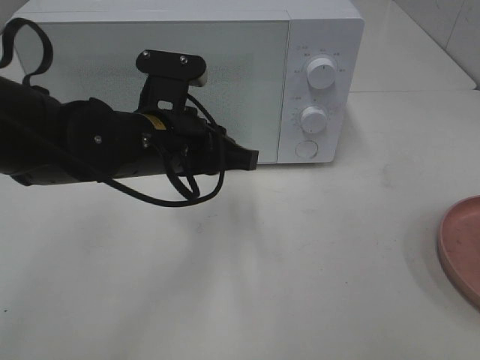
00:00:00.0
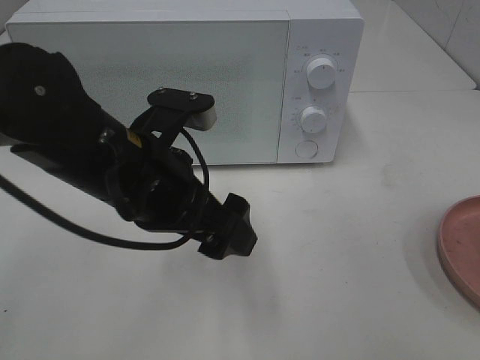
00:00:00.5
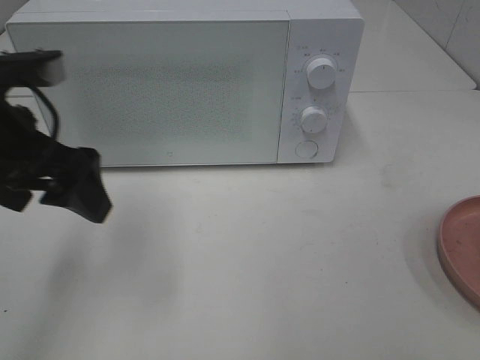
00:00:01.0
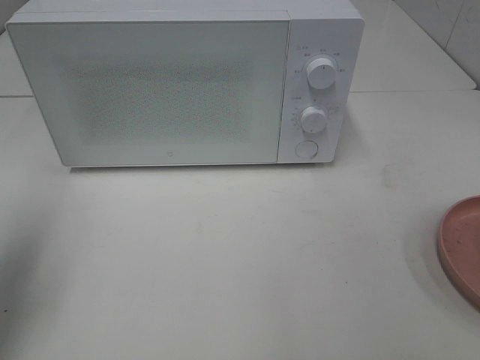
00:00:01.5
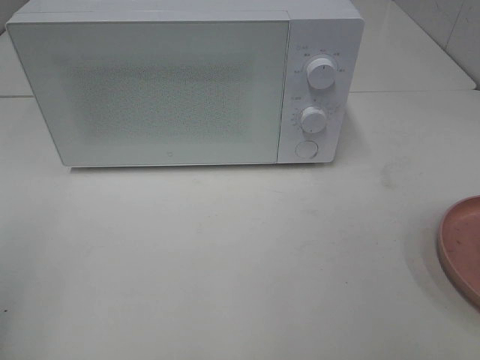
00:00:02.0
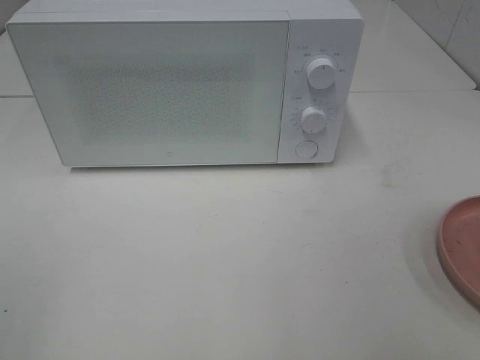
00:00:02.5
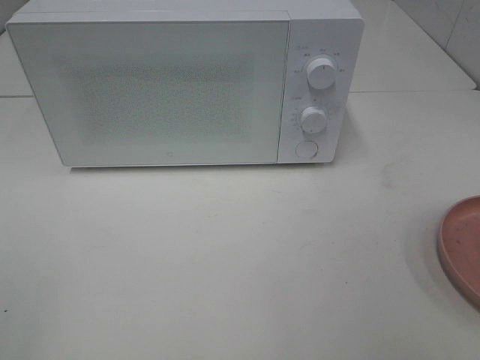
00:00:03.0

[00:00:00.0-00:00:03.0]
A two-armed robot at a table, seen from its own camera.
Task of the whole recording: Heat the burger.
00:00:00.0 to 00:00:01.5: The left gripper heads to the left and upward, covering some 30 cm, and opens.
00:00:01.5 to 00:00:03.0: The left gripper shifts roughly 20 cm backward.

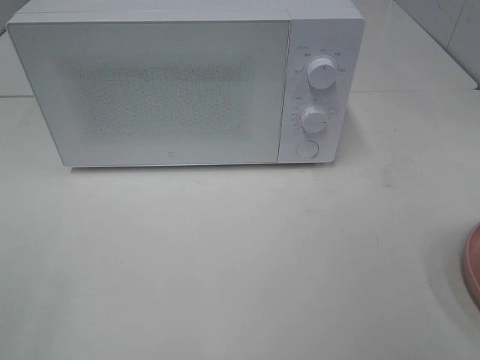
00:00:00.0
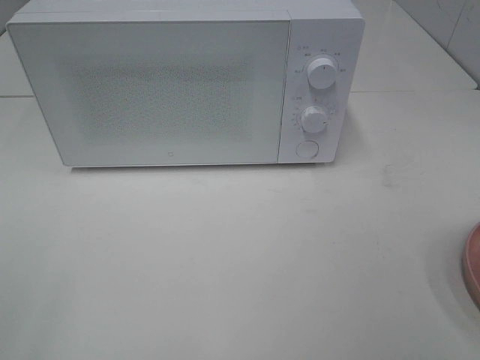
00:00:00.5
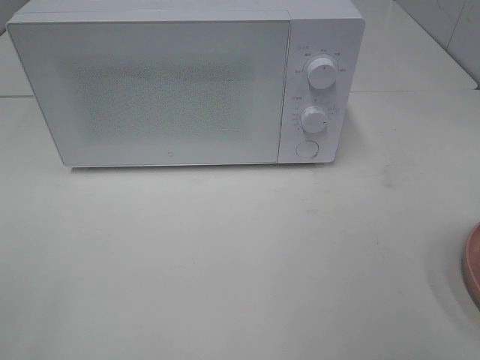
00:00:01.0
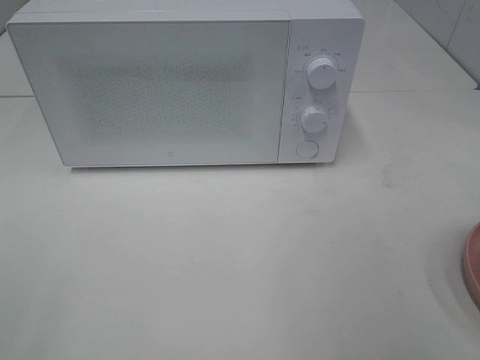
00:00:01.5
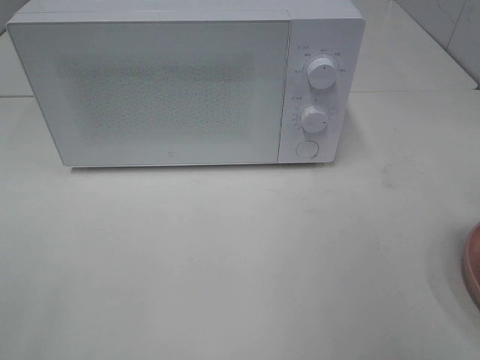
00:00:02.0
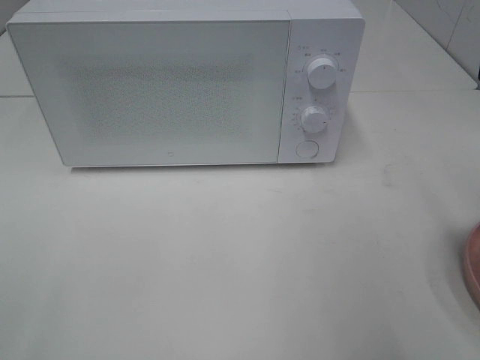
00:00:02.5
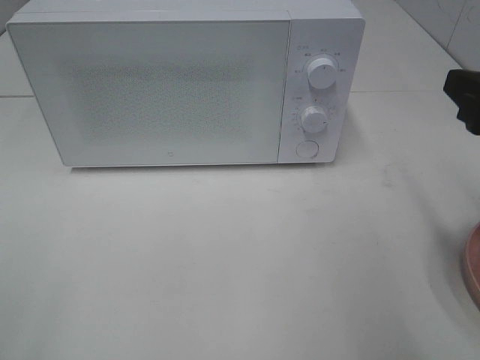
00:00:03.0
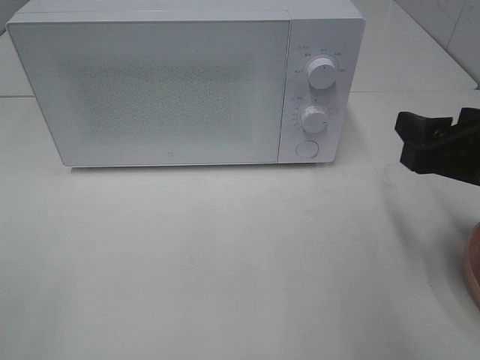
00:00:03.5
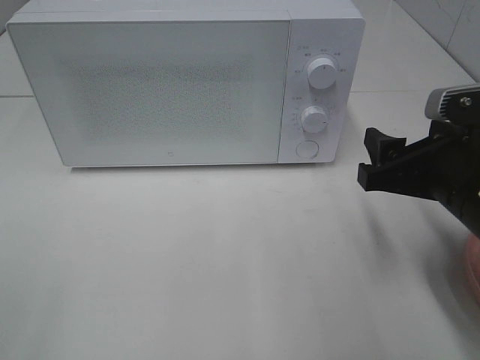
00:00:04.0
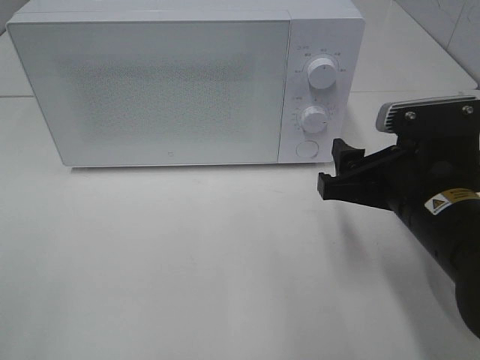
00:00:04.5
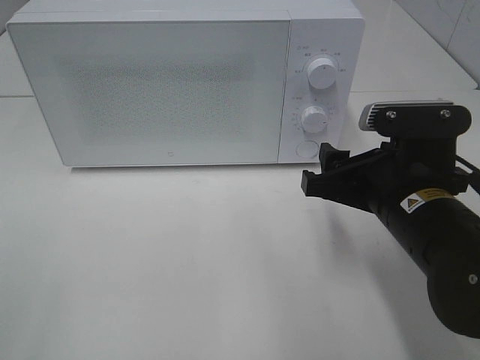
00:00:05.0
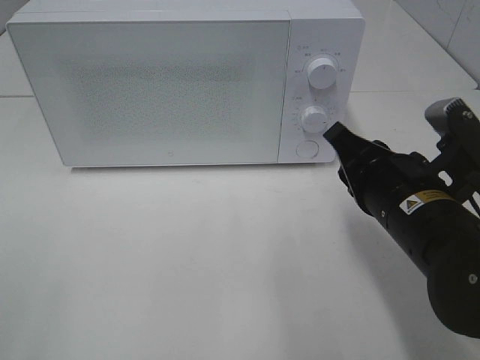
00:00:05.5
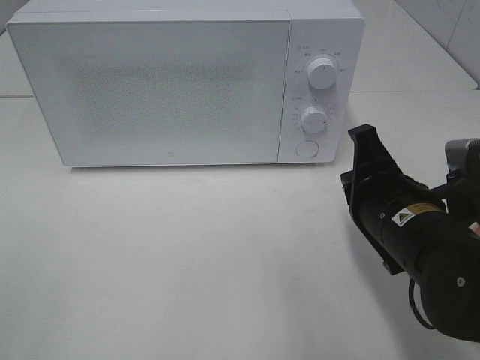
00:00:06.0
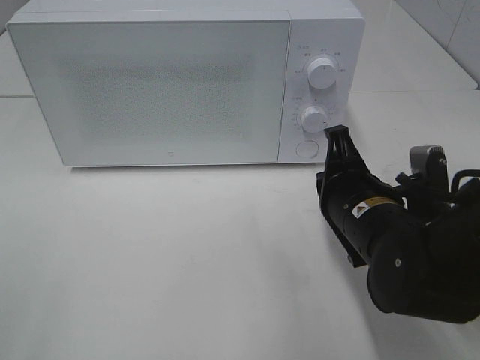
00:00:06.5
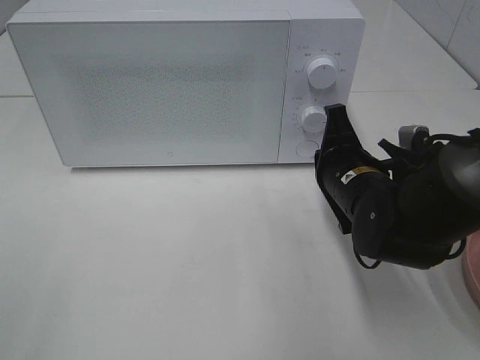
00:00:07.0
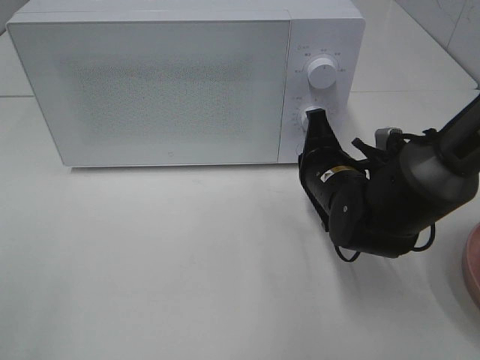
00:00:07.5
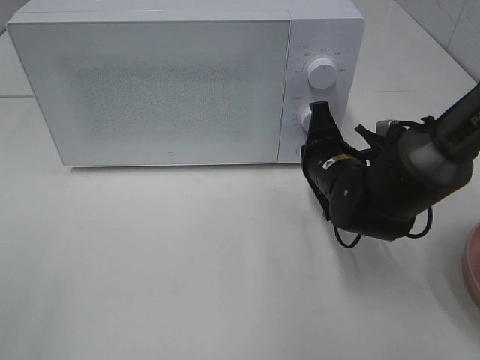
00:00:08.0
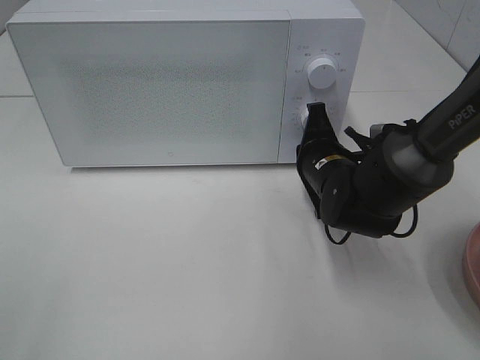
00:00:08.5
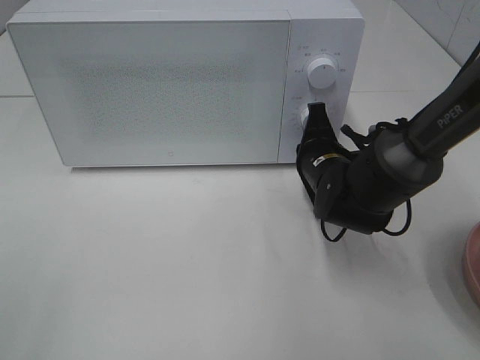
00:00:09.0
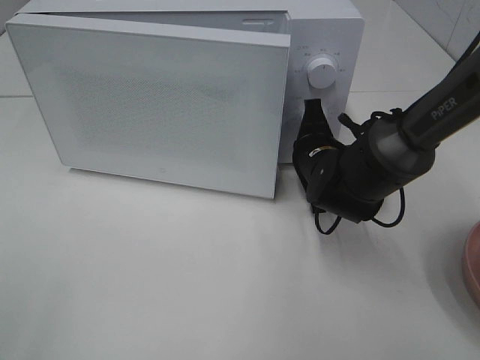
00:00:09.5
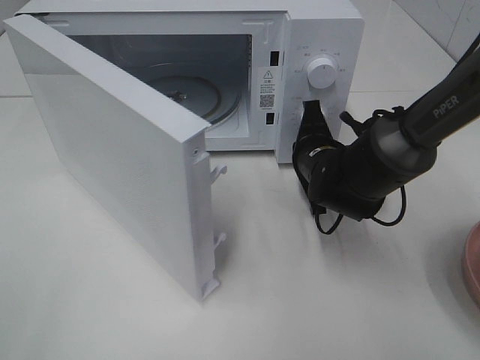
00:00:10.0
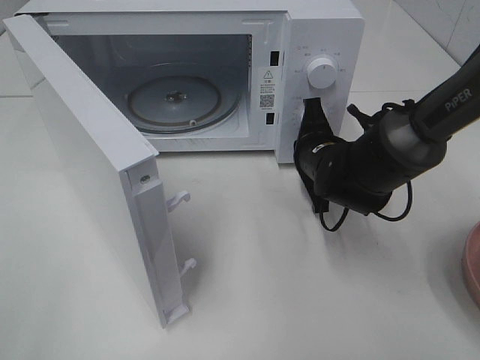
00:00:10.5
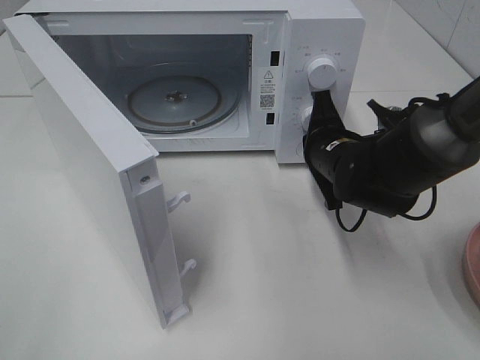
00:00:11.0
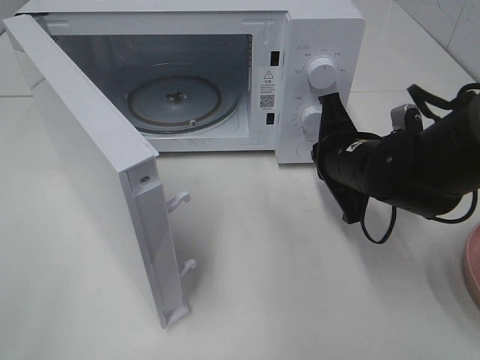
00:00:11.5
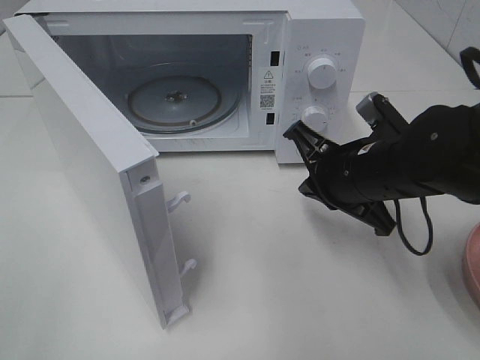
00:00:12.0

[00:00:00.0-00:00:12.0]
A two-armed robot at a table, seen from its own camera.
Task of the whole recording: Heat the burger.
Step, 00:00:00.0 to 00:00:11.0: Right hand: press the switch.
00:00:02.0 to 00:00:04.0: The right gripper goes roughly 15 cm downward, forward and to the left.
00:00:04.0 to 00:00:06.0: The right gripper moves to the left, roughly 5 cm, and closes up.
00:00:06.0 to 00:00:08.0: The right gripper moves forward, some 10 cm.
00:00:10.0 to 00:00:12.0: The right gripper heads backward and upward, covering approximately 10 cm.

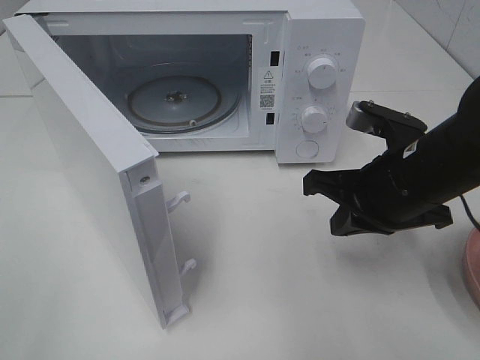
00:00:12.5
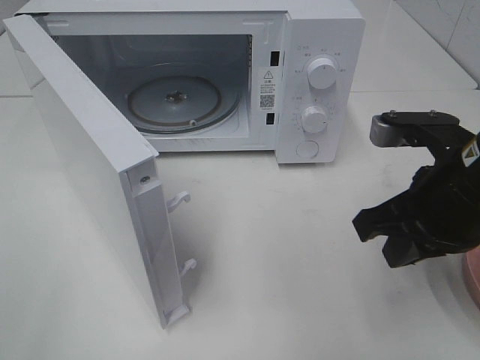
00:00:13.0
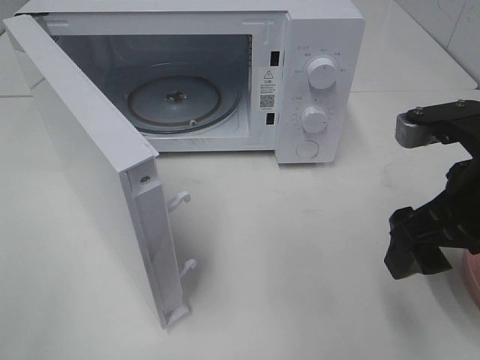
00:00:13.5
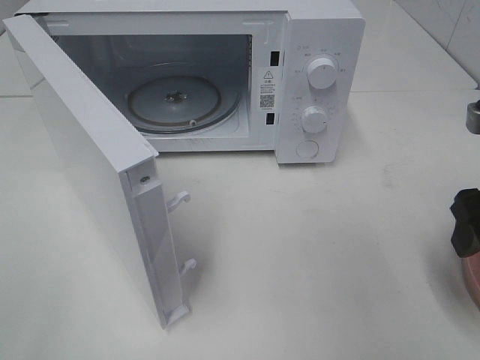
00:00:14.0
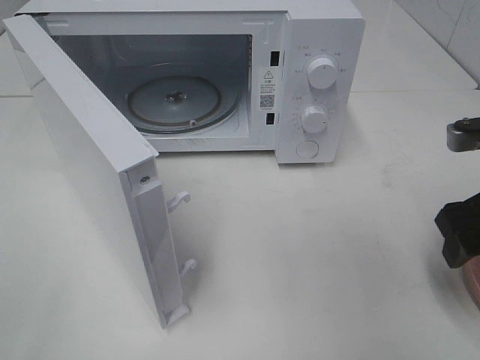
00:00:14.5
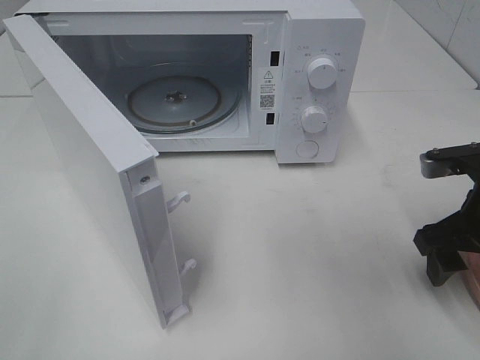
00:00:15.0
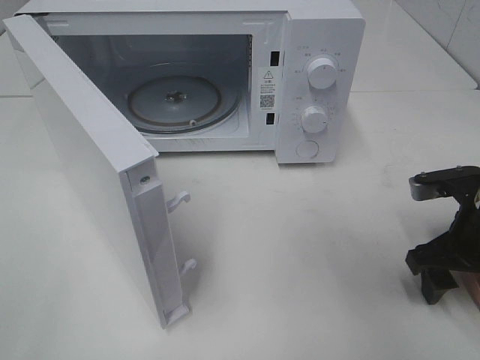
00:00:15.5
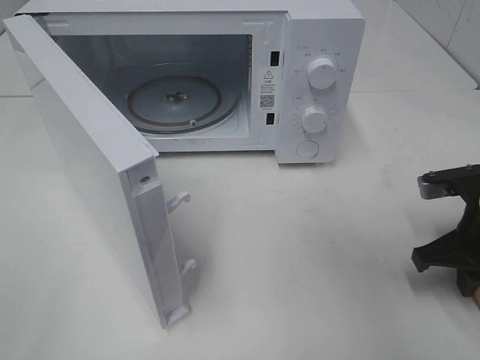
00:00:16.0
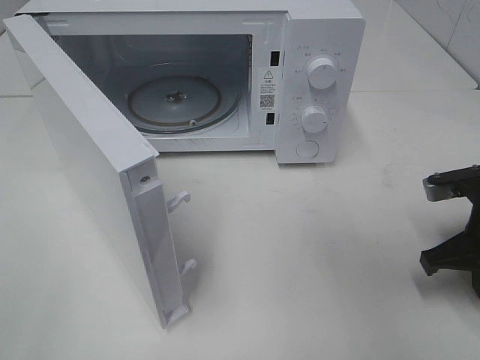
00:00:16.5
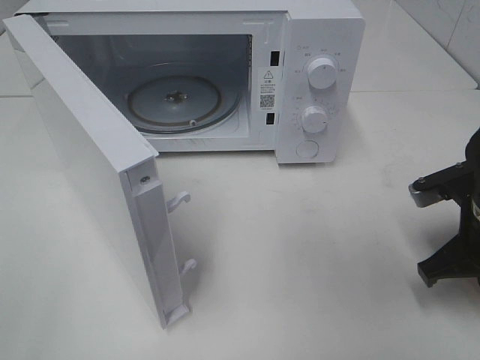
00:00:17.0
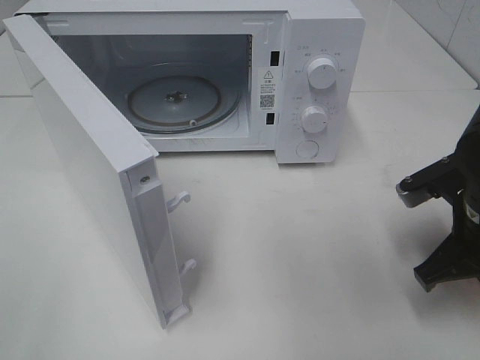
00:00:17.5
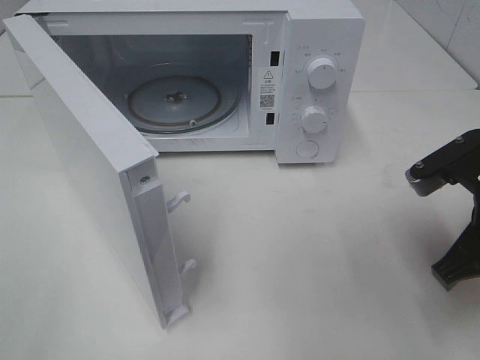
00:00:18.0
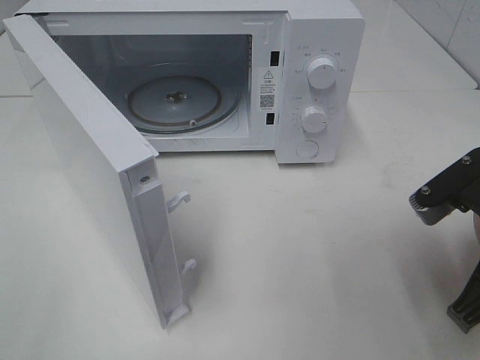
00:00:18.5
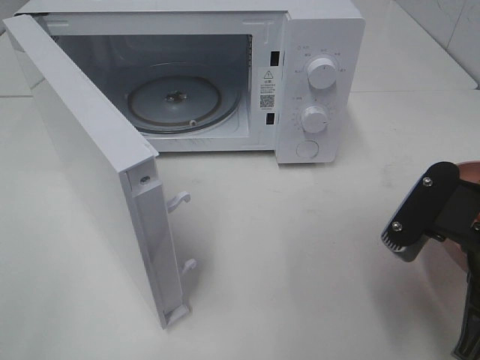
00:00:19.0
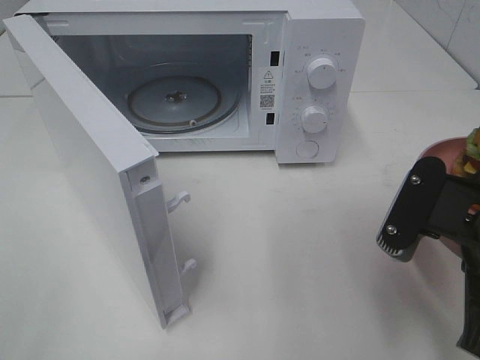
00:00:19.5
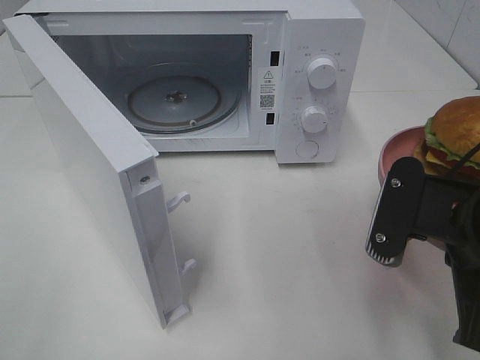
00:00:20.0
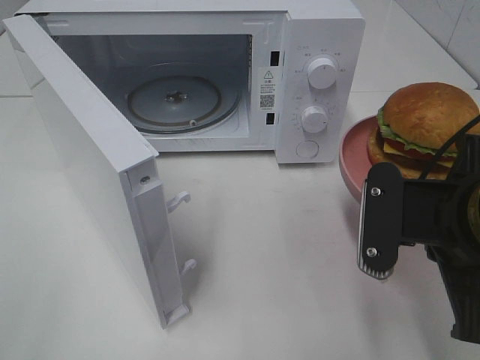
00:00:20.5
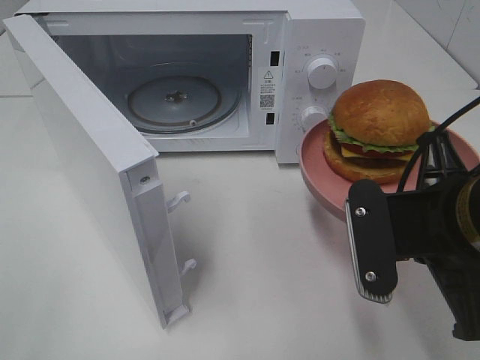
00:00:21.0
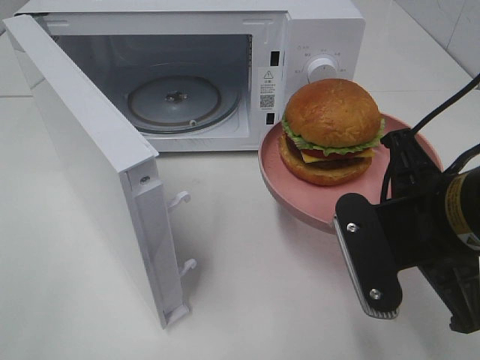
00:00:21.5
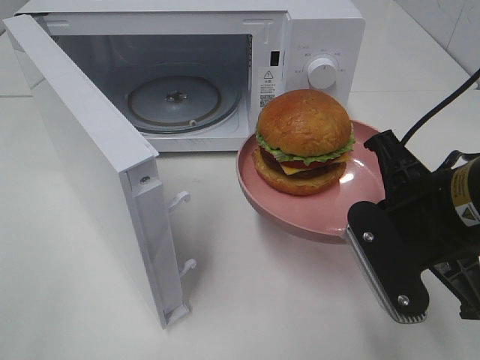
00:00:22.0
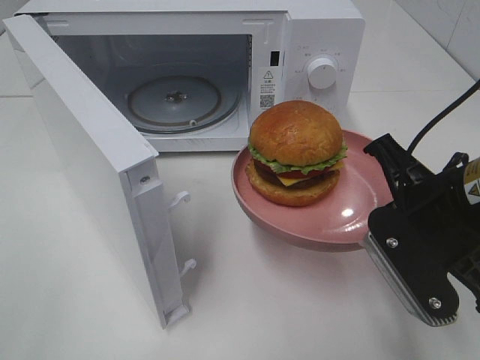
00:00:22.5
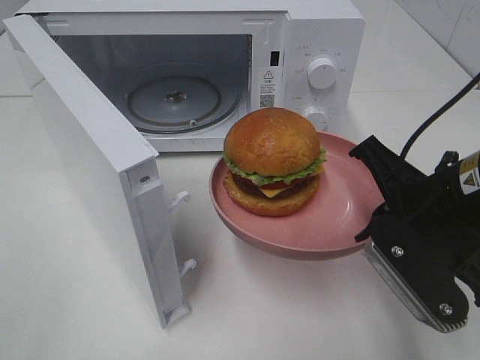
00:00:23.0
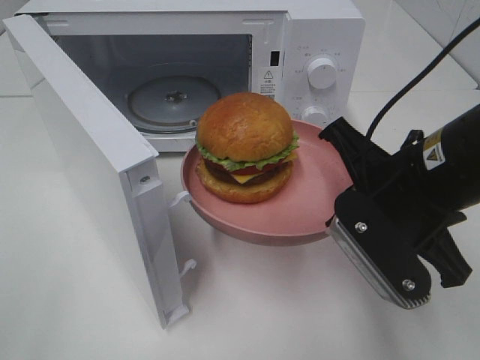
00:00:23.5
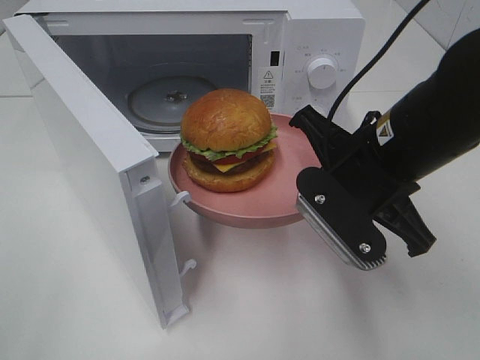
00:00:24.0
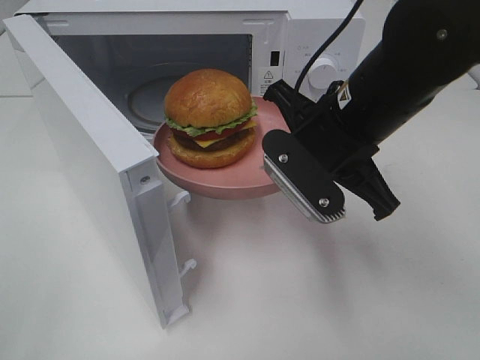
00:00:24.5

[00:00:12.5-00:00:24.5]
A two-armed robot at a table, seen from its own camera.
Task of the whole recording: Heat the burger.
Step, 00:00:12.5 to 00:00:16.0: Right hand: grab the plate with the hamburger.
00:00:12.5 to 00:00:14.5: The right gripper travels to the right by some 10 cm, and opens its fingers.
00:00:14.5 to 00:00:16.5: The right gripper goes approximately 5 cm downward, and closes.
00:00:16.5 to 00:00:18.5: The right gripper travels backward, upward and to the left by about 10 cm.
00:00:22.5 to 00:00:24.5: The right gripper travels forward and to the left by roughly 10 cm.
